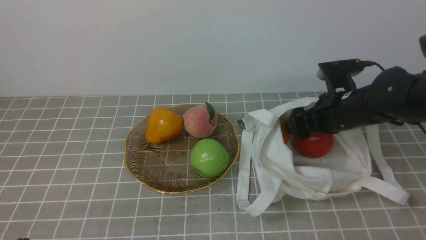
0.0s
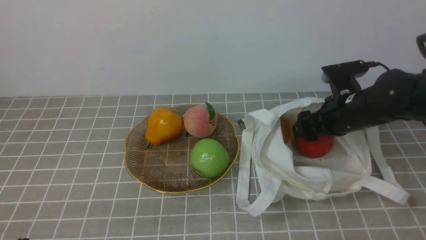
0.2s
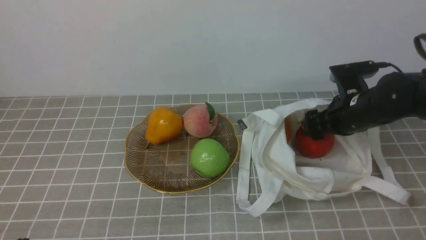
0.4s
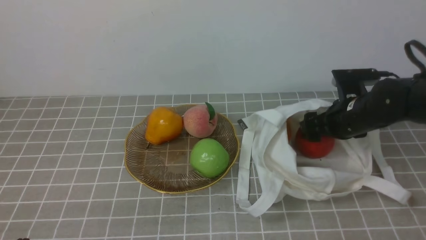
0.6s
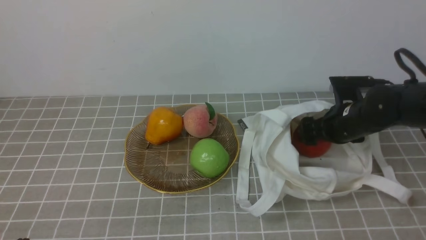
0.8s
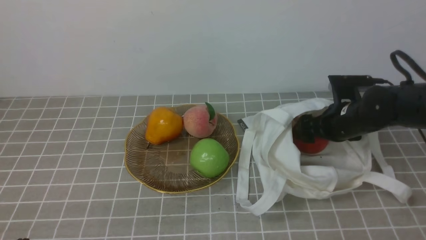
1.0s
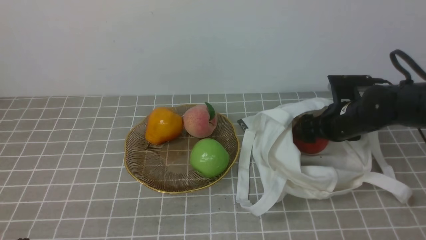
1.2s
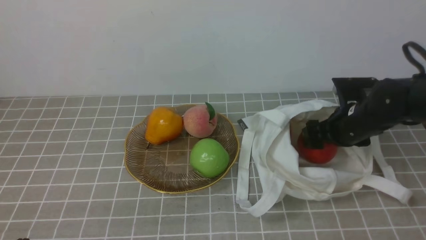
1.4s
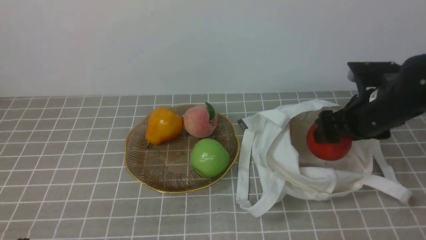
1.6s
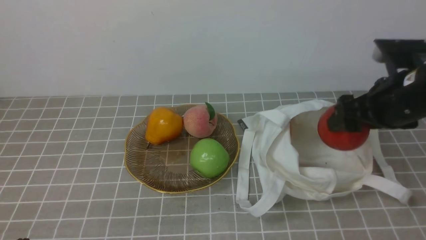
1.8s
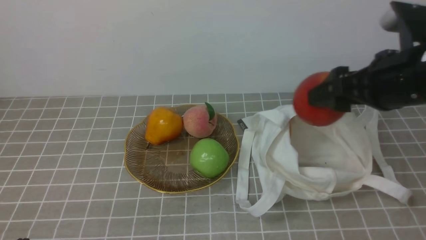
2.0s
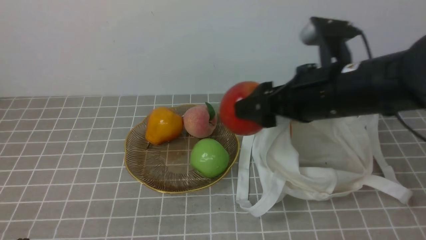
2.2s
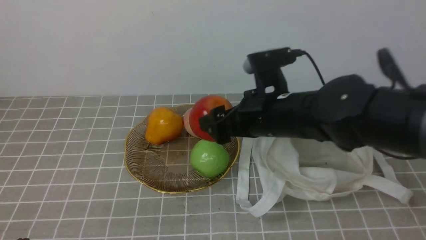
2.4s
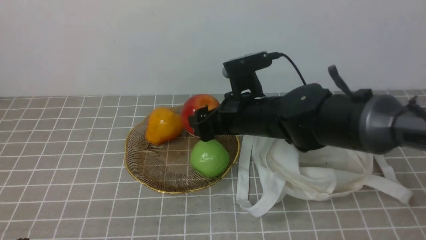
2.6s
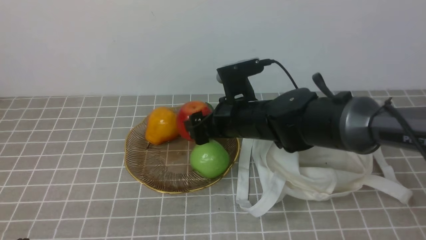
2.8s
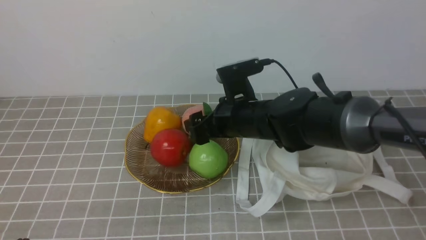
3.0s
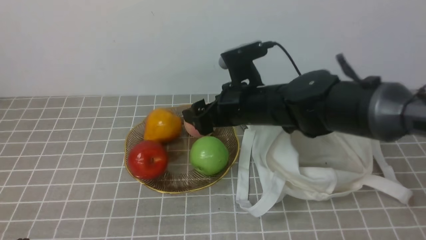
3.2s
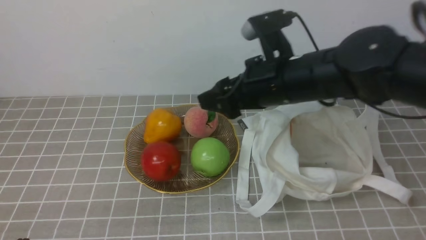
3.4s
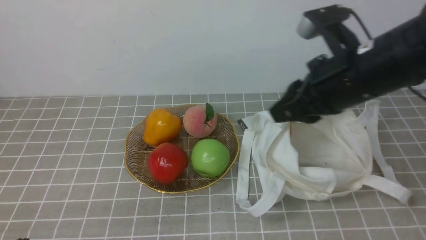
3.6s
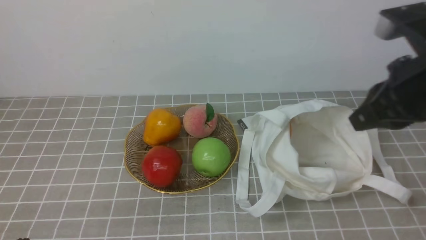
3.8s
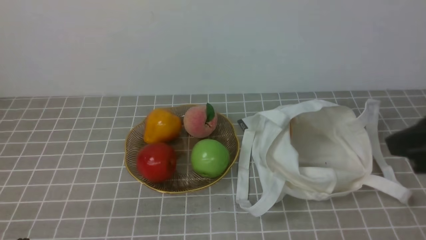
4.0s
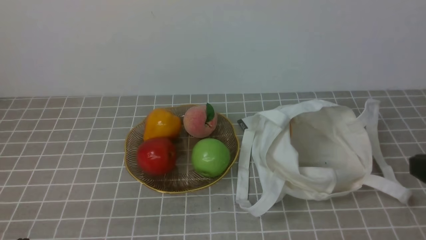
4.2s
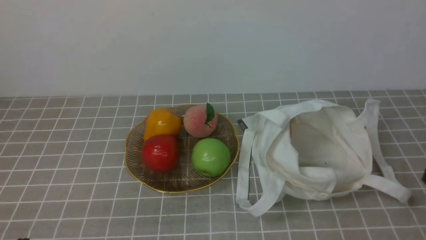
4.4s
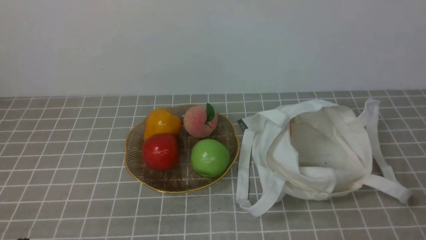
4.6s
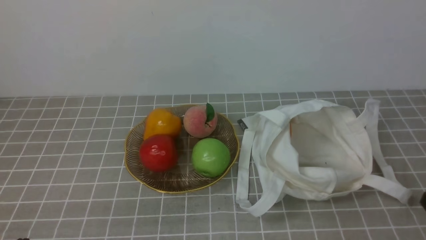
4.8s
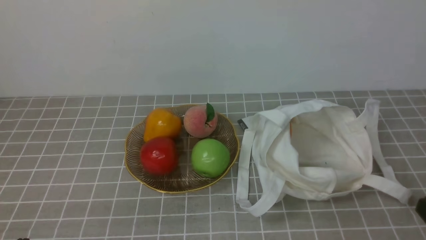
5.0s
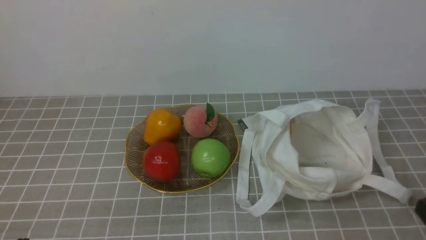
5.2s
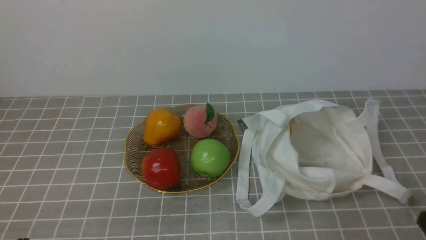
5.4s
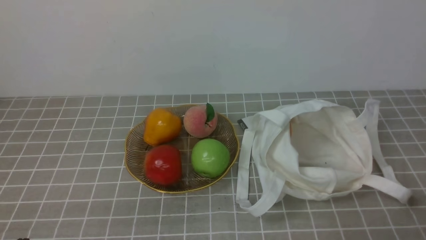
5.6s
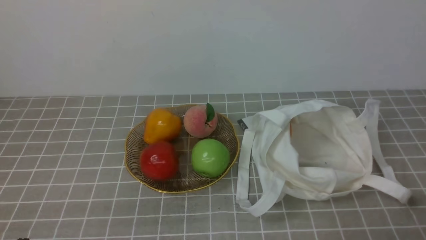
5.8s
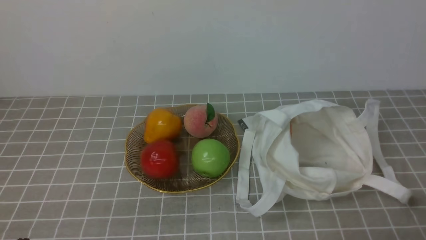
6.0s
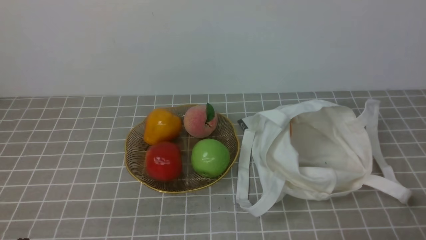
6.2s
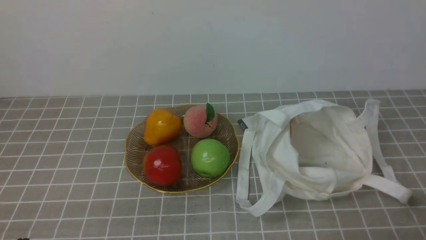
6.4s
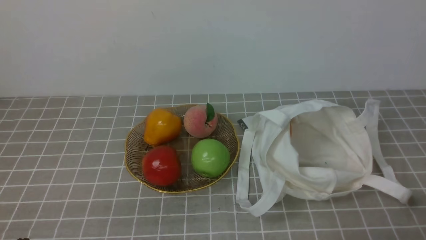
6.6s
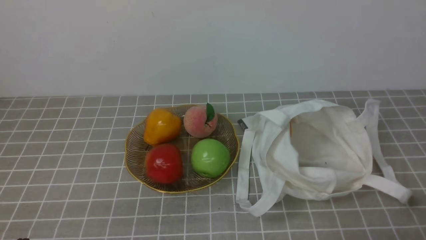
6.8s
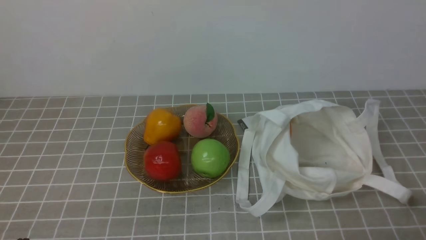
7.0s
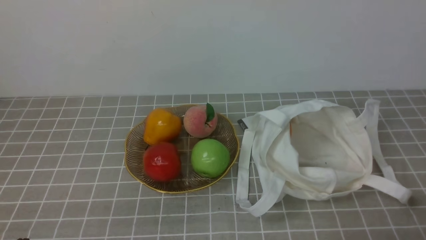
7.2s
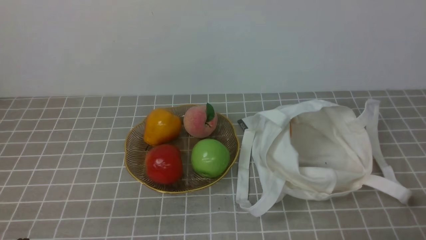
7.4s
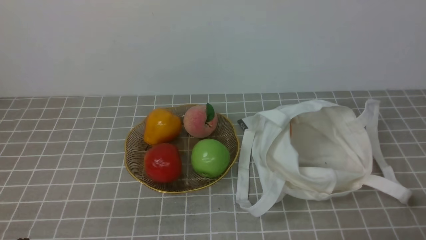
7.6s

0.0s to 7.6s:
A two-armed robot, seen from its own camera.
Step, 1.8s to 3.0s: use the right arm to put the apple into the empty plate on the left.
0.0s to 1.6s: The right gripper ends up about 5 cm from where it was.
1.6s to 3.0s: The right gripper goes approximately 20 cm to the left.
3.0s to 4.6s: The right gripper goes some 35 cm backward and to the right, and closes.
6.0s to 7.6s: The two grippers keep their place.
